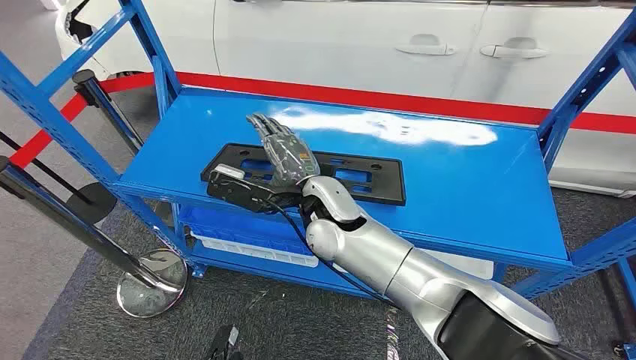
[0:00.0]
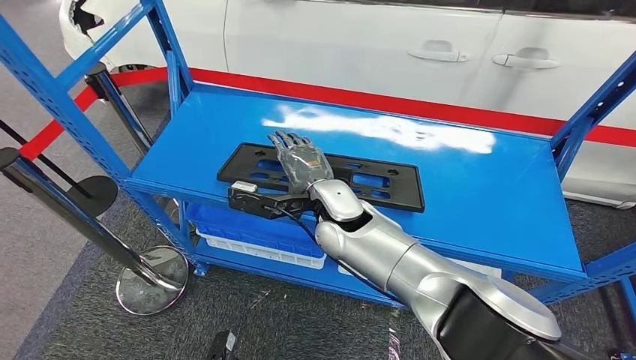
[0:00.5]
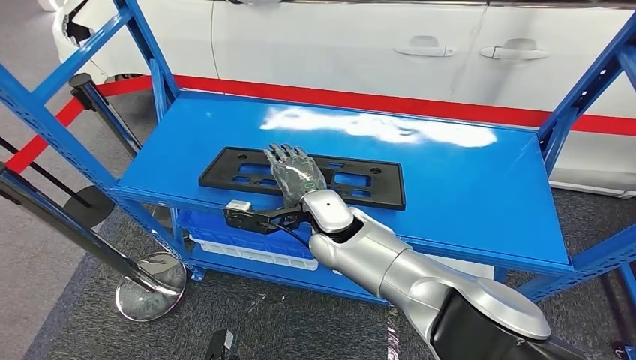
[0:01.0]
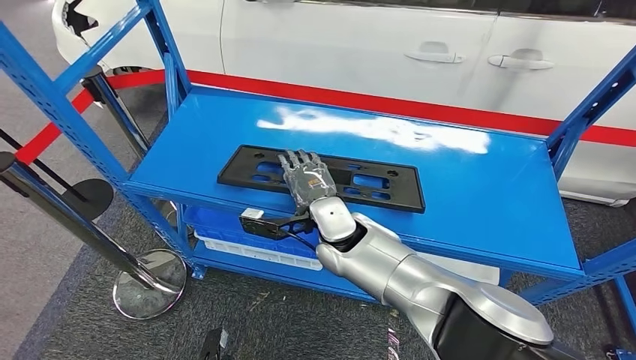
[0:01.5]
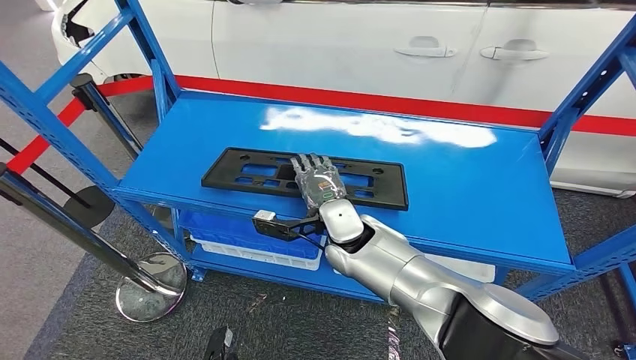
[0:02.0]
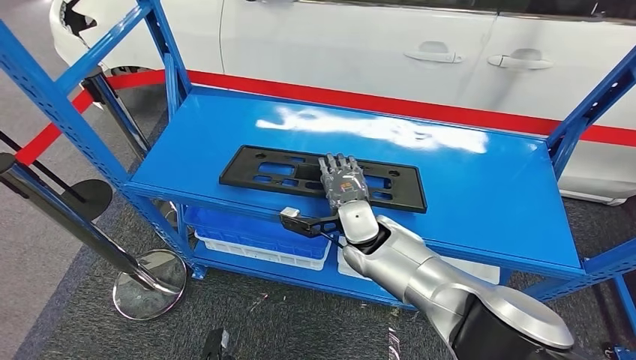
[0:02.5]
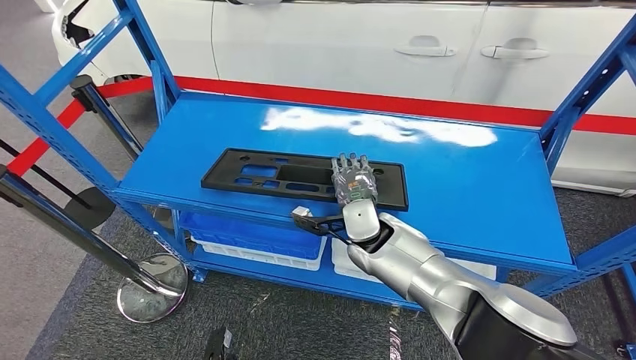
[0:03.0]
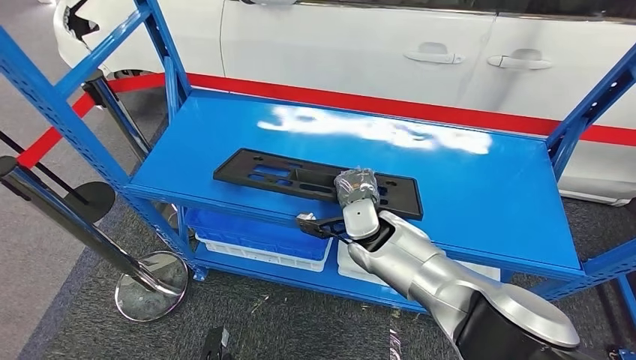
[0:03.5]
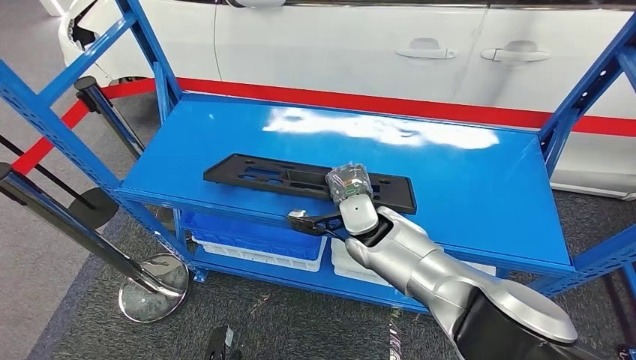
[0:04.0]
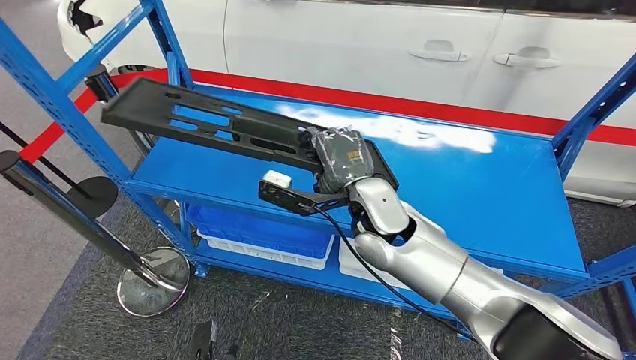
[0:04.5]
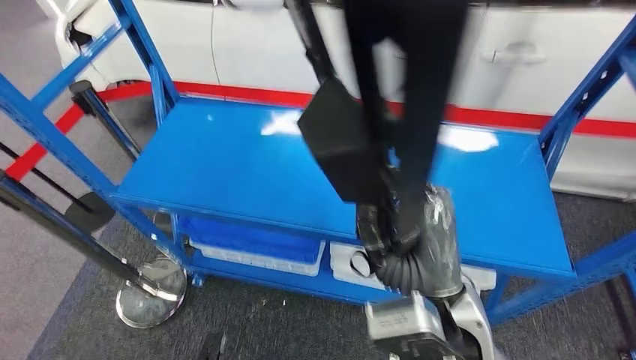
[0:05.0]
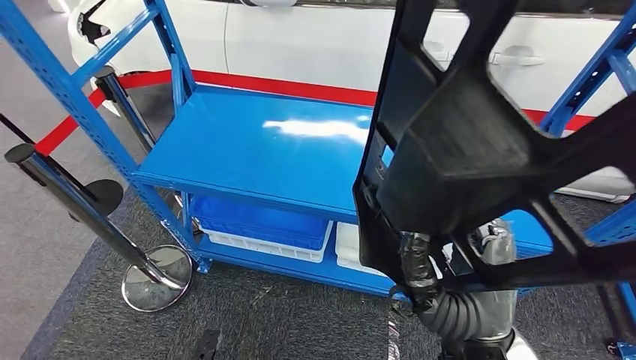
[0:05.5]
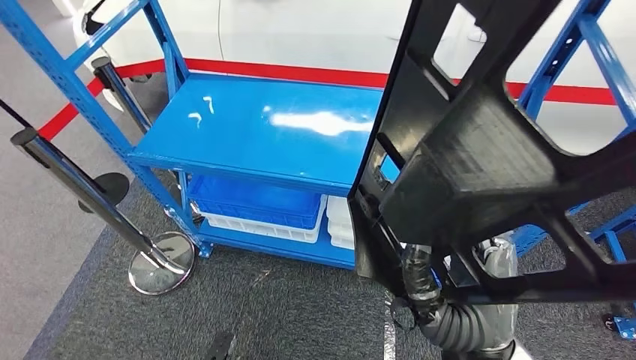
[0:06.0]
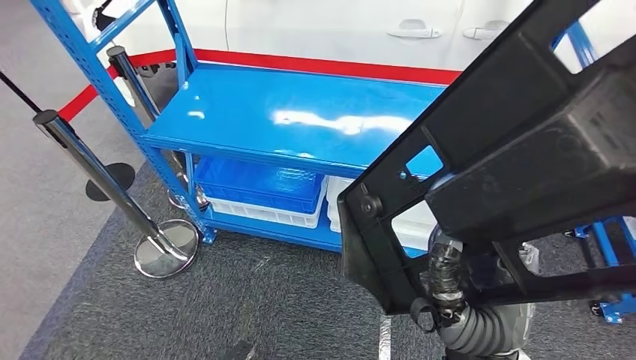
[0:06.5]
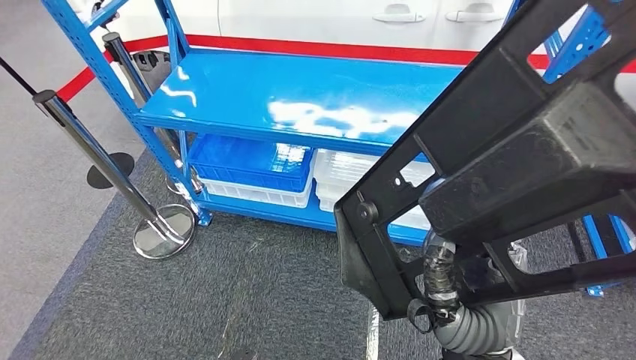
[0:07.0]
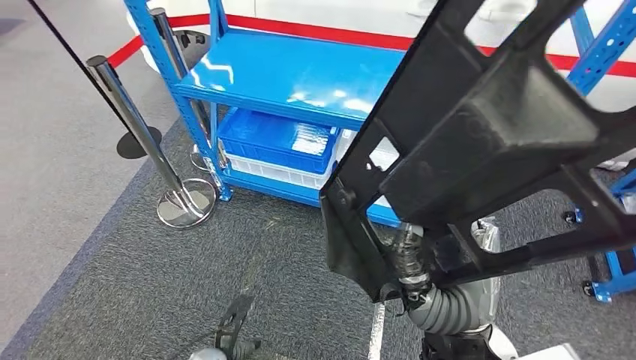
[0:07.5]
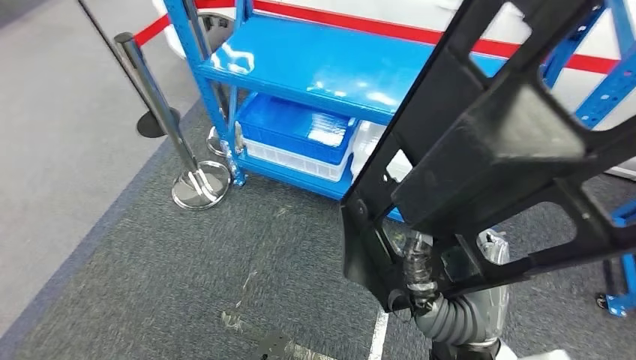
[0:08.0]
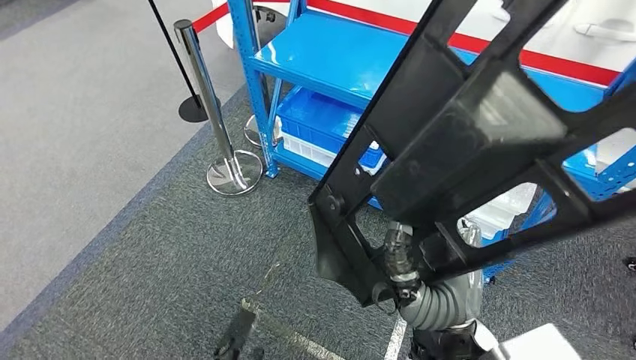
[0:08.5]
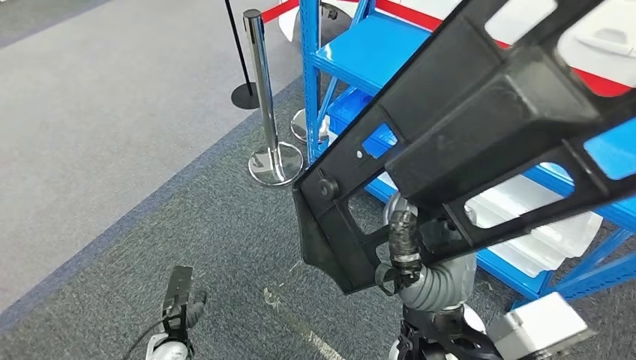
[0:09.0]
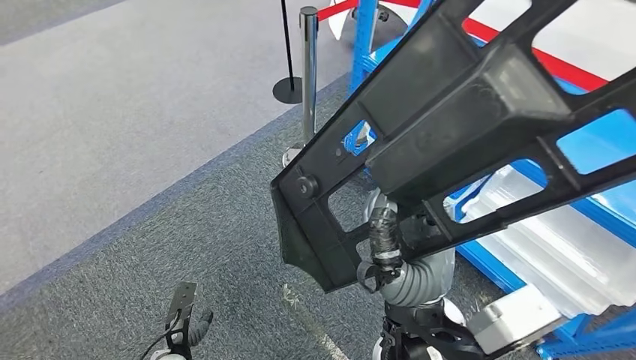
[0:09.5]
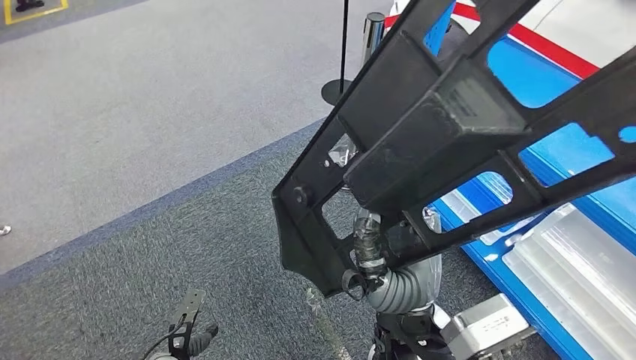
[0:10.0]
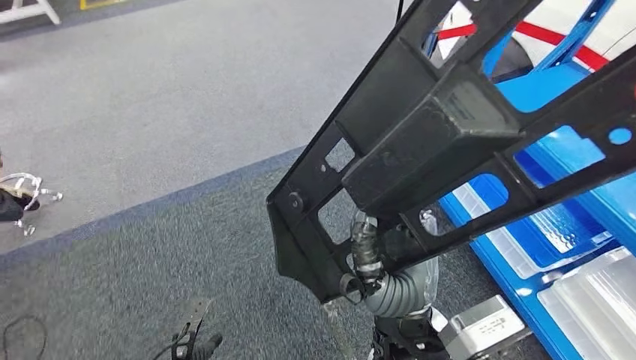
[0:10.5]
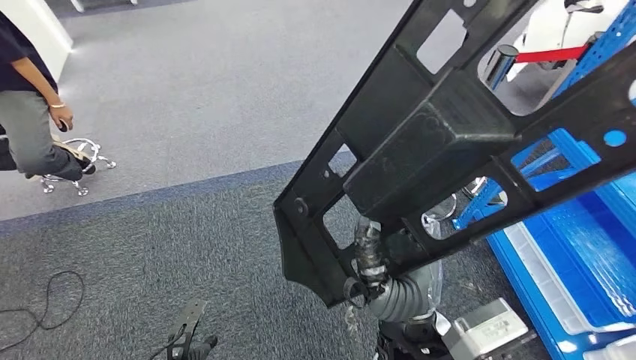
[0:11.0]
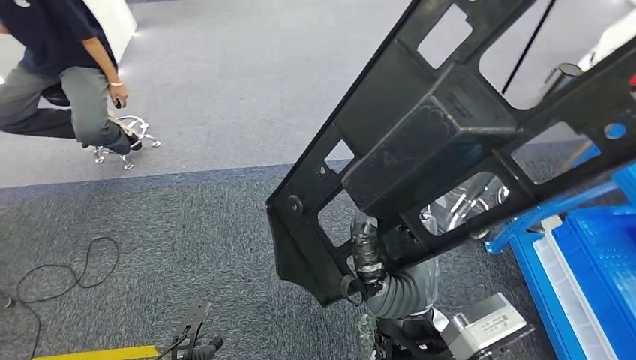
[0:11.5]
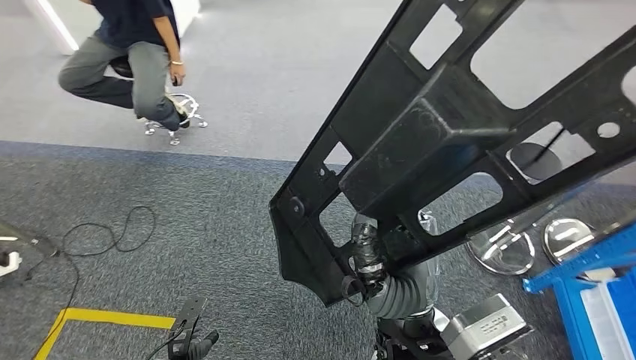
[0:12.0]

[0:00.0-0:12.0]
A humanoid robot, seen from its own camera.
Step, 0:00.0 to 0:04.5: Pick up the large material from the shelf.

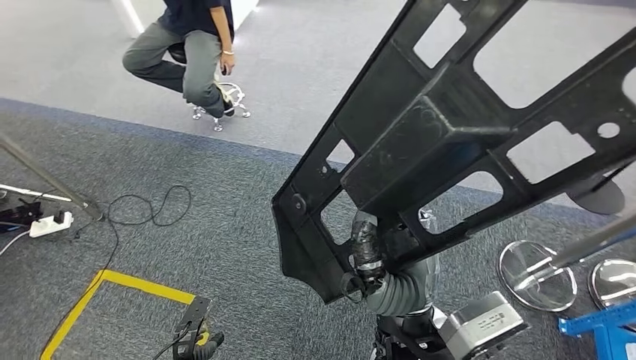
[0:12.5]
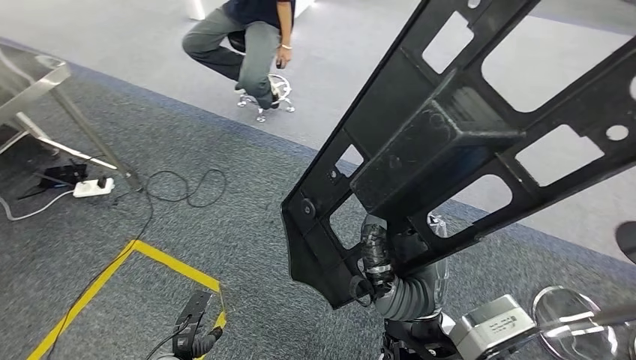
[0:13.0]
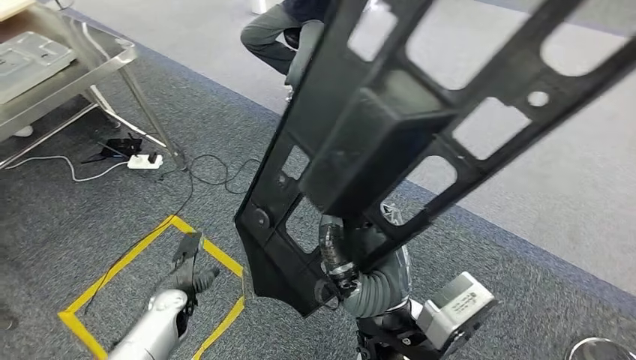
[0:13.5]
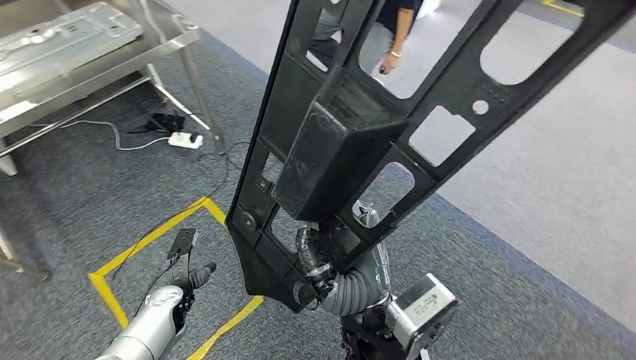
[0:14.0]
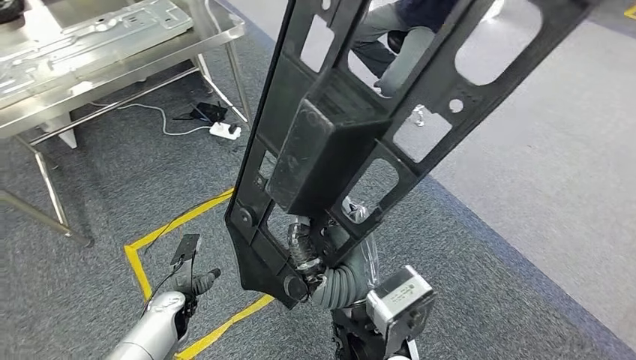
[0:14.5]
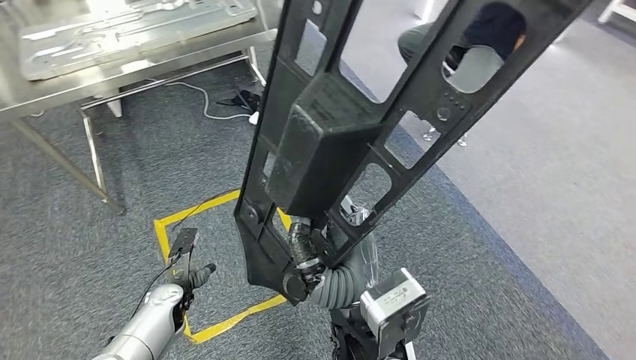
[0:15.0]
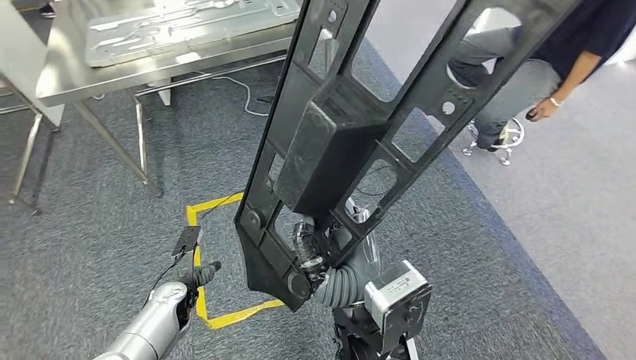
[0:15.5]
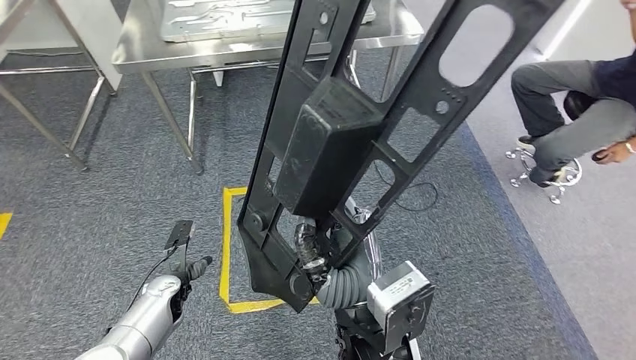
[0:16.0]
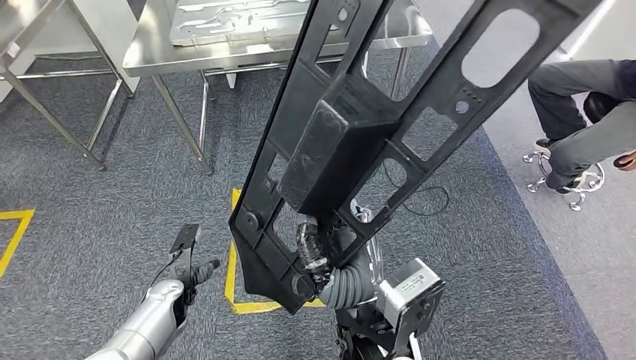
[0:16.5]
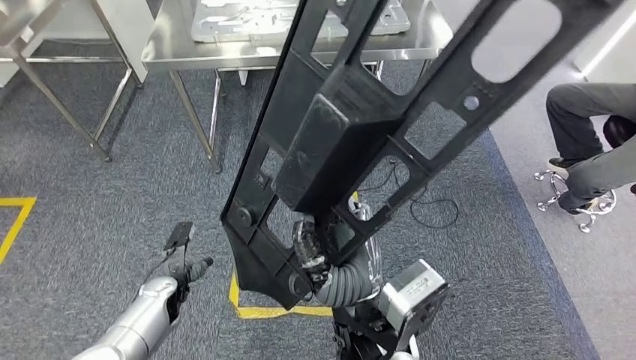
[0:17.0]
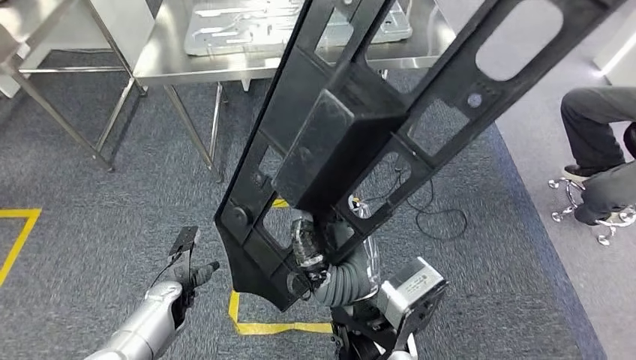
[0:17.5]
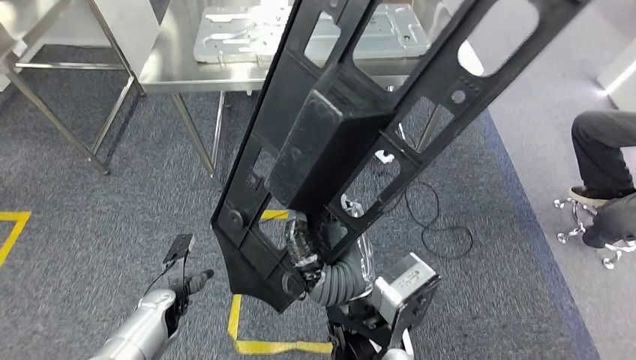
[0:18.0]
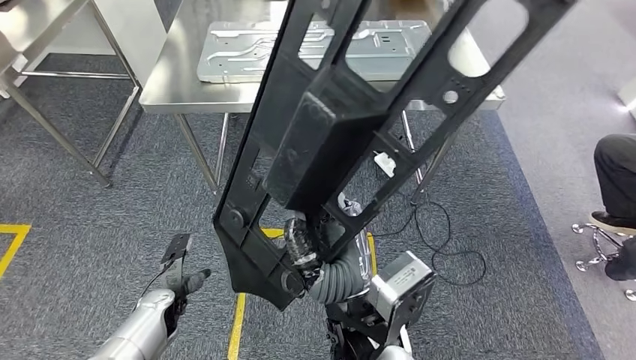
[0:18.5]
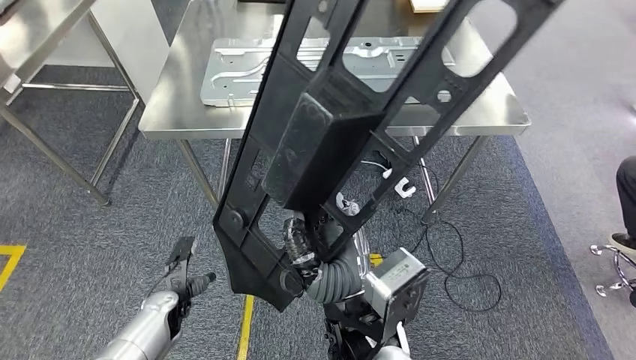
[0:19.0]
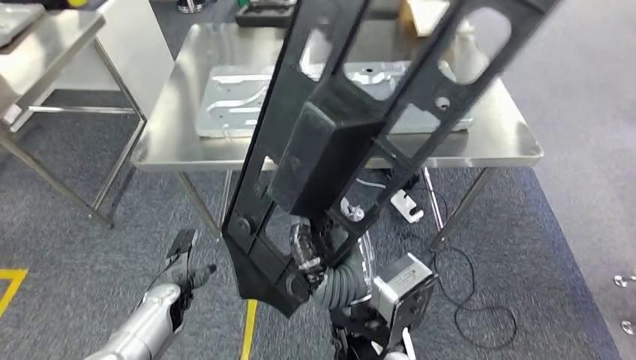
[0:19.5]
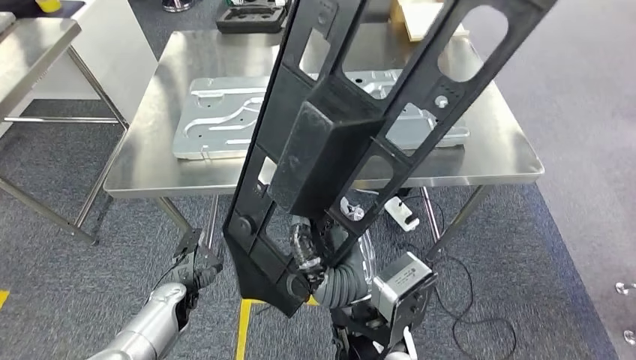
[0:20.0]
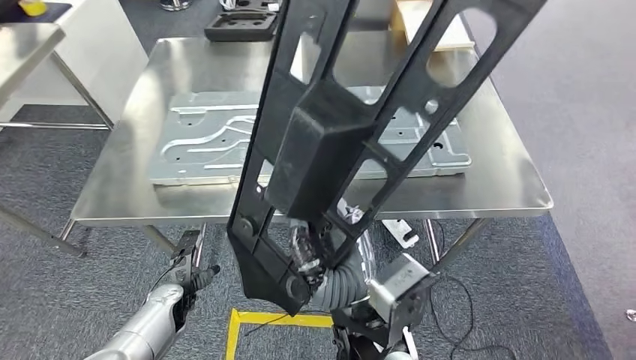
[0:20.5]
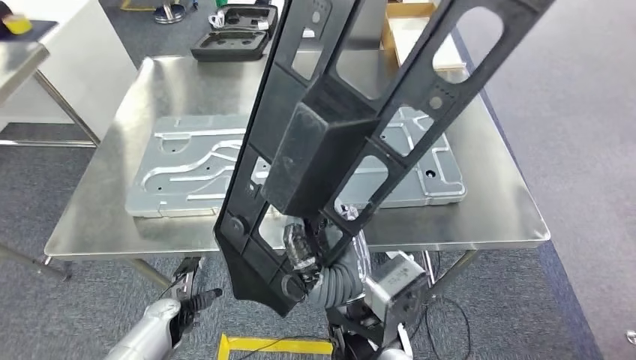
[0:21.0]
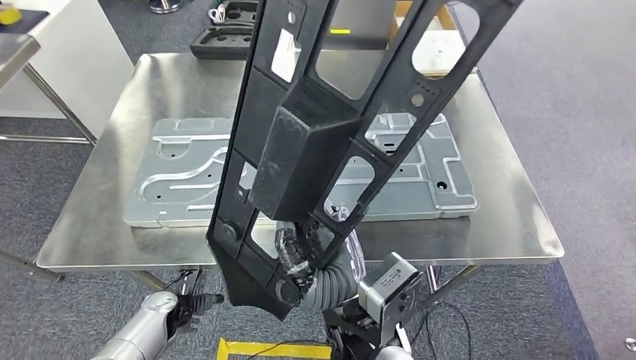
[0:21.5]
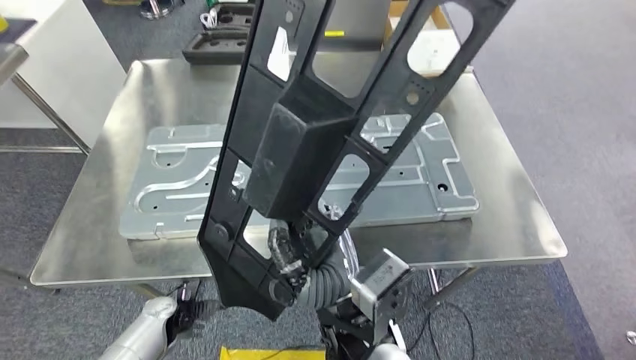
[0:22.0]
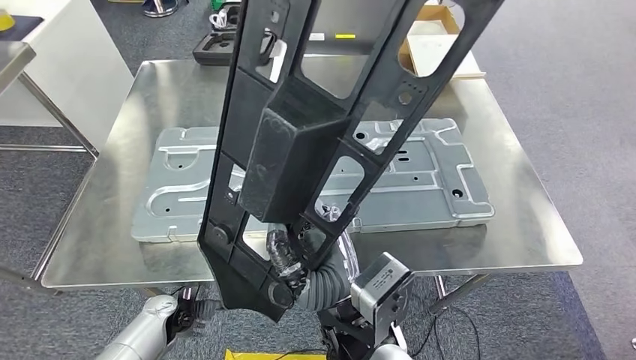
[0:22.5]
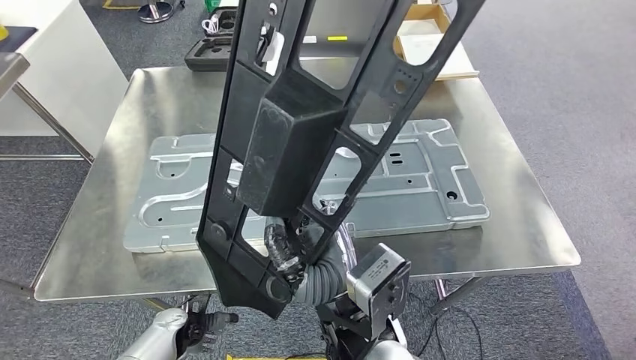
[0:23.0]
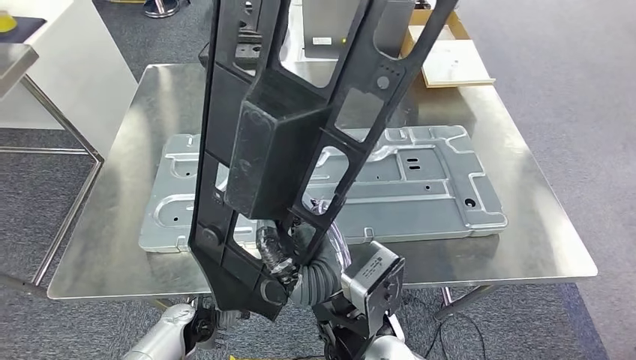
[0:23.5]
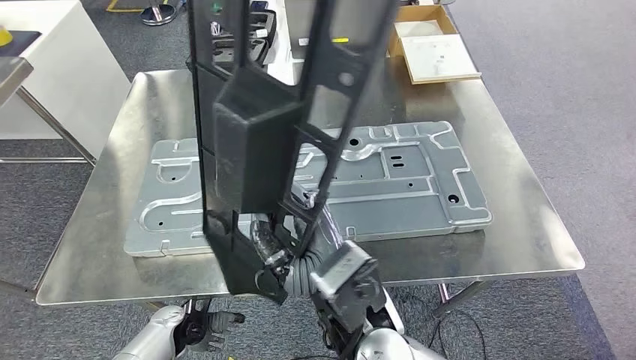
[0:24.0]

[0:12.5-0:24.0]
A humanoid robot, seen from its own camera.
Step, 0:12.5 to 0:21.0: Move the large material to the workbench.
